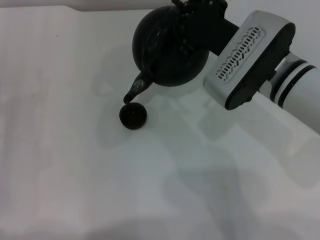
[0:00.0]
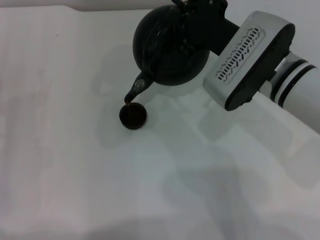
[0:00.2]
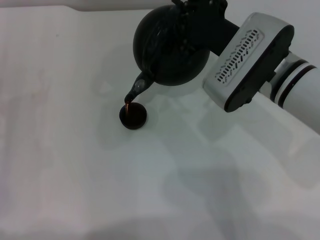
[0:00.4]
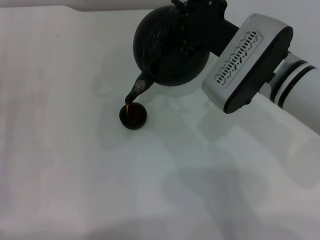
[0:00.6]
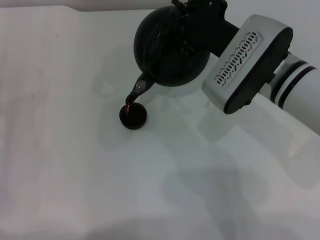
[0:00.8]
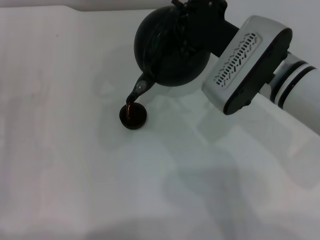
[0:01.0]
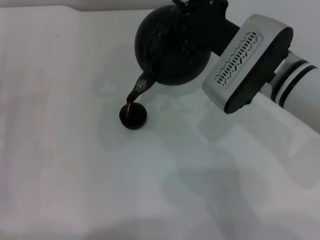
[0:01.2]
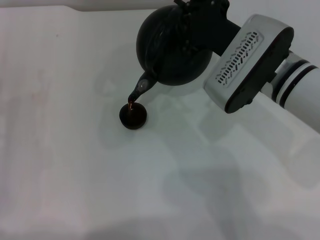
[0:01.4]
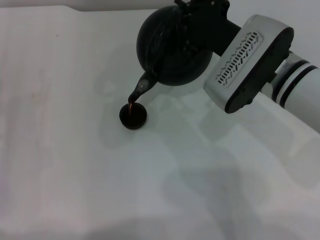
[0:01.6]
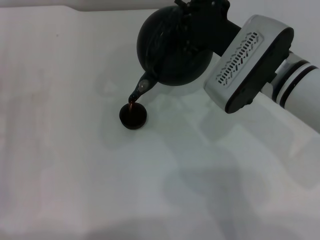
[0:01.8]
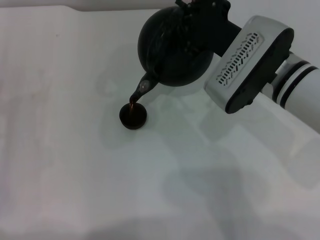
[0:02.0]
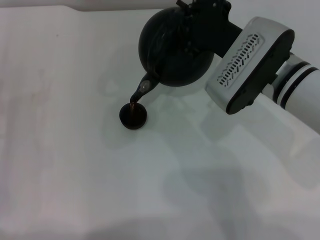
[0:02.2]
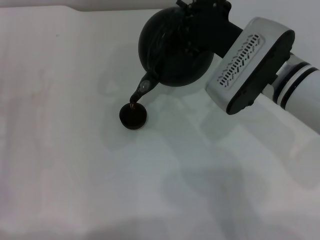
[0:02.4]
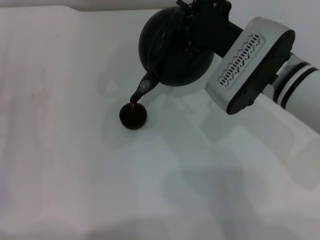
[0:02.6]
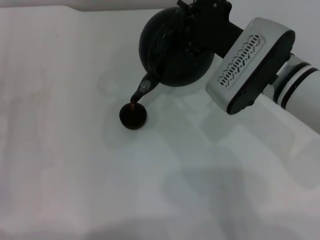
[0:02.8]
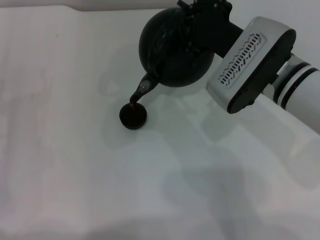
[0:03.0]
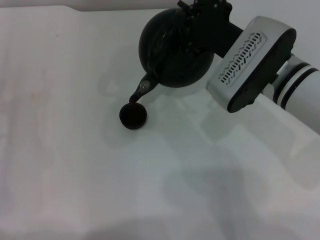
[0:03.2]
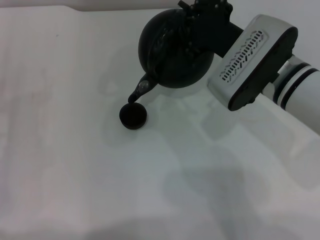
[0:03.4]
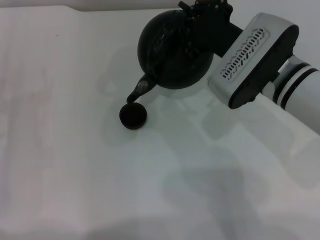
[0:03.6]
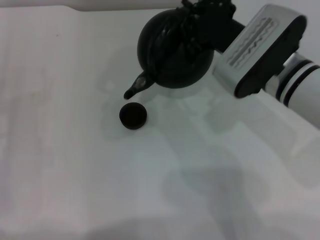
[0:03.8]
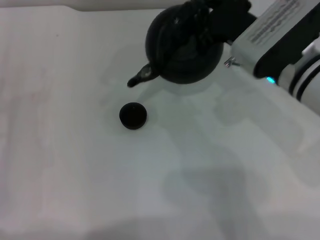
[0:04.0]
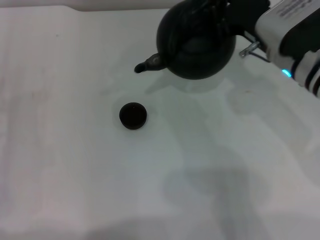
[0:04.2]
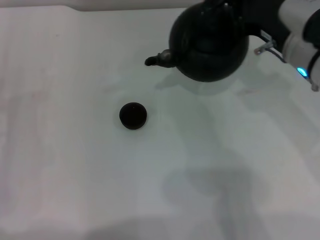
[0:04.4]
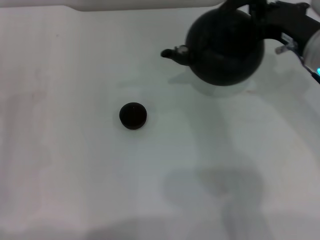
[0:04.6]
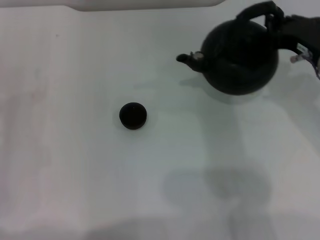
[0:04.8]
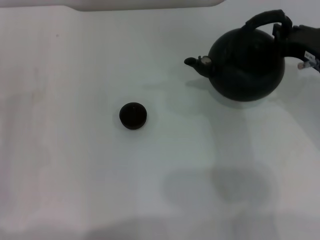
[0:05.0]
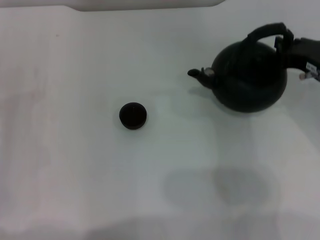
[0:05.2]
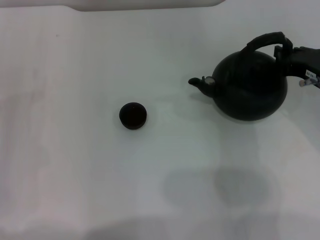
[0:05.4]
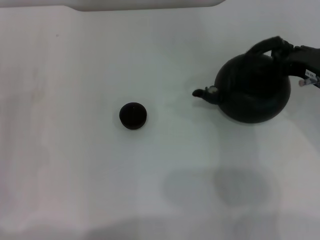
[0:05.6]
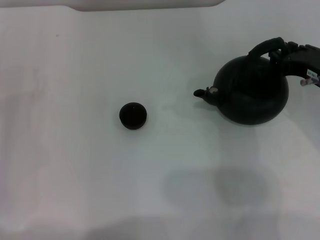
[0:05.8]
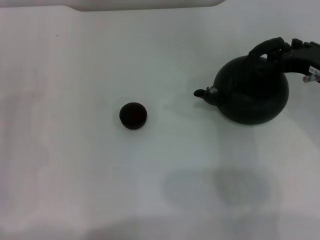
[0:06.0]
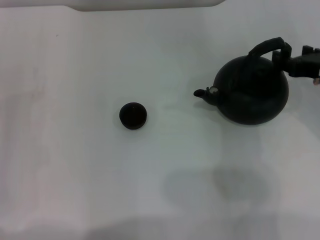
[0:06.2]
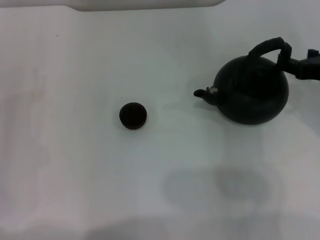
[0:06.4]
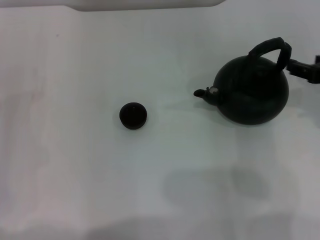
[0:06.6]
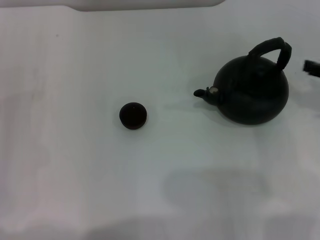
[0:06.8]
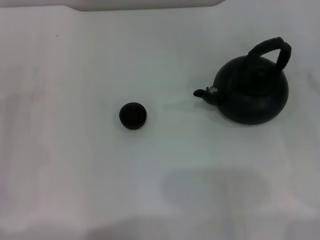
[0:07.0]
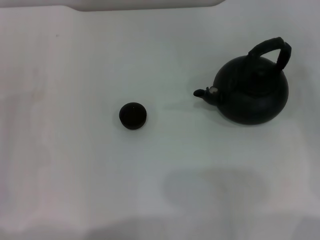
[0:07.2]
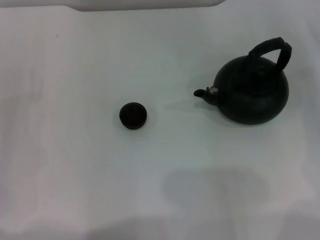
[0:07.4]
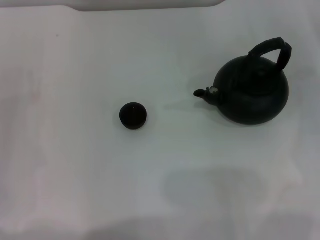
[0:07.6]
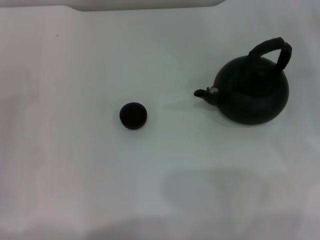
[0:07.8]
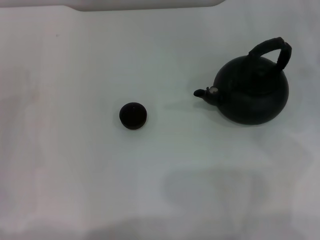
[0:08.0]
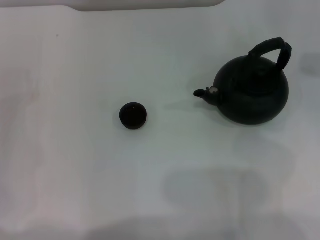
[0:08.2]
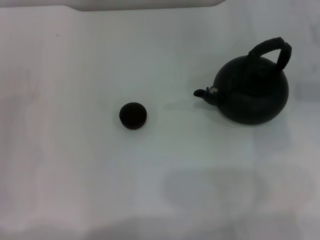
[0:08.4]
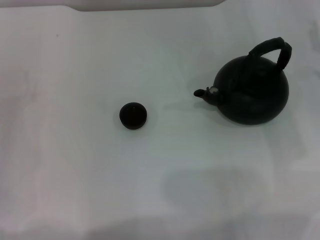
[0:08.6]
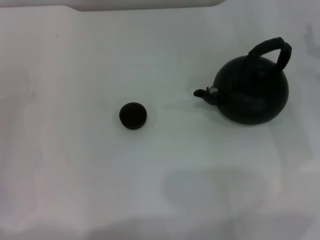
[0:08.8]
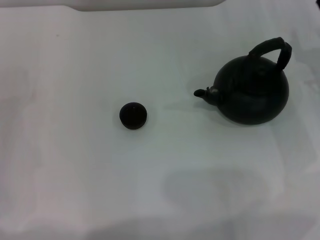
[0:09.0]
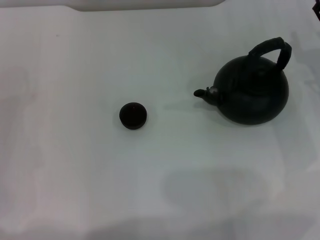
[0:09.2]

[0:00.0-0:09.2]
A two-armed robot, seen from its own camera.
Task of the whole recording: Grasp the handle of the teapot with one hand and pour tea into the teacup.
Step, 0:00.0 to 0:03.8: Pour tea into the teacup with the right gripper.
Step, 0:04.0 to 0:06.6: Put down the teapot with the right gripper.
0:00.0 to 0:03.0: Both grippers stay put.
0:03.0 to 0:04.6: The right gripper goes some 5 cm to the right.
0:04.6 to 0:06.2: The right gripper ends up approximately 5 cm from where it was, and opens.
0:06.2 to 0:07.6: The right gripper goes some 15 cm to the right and forward.
